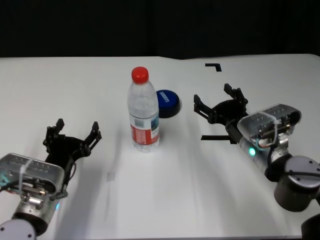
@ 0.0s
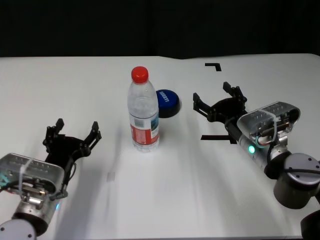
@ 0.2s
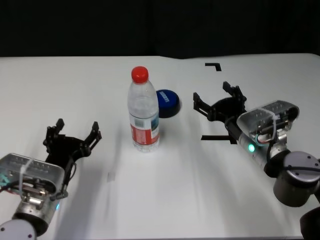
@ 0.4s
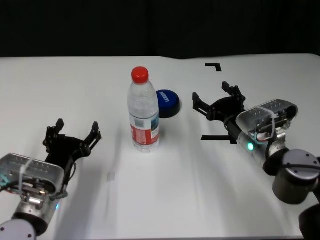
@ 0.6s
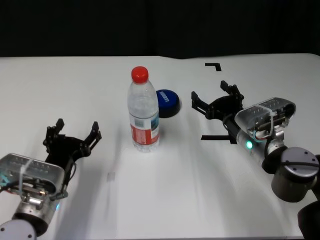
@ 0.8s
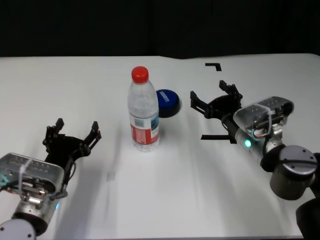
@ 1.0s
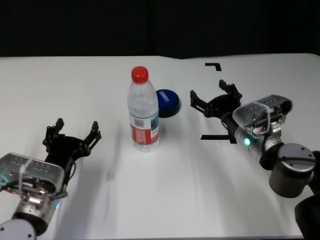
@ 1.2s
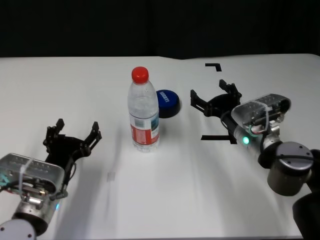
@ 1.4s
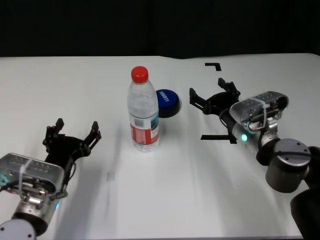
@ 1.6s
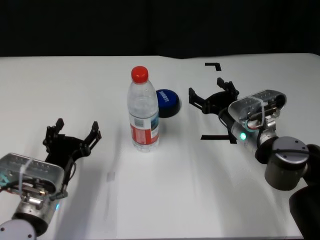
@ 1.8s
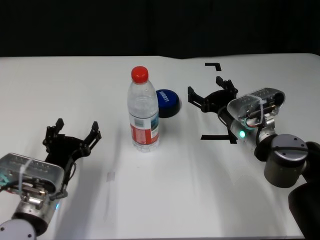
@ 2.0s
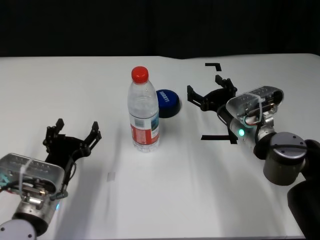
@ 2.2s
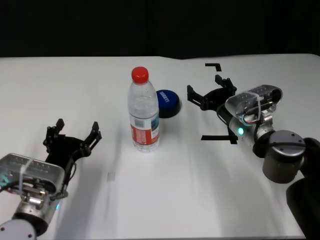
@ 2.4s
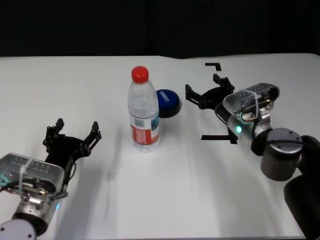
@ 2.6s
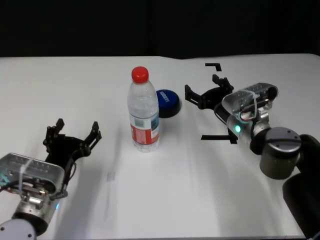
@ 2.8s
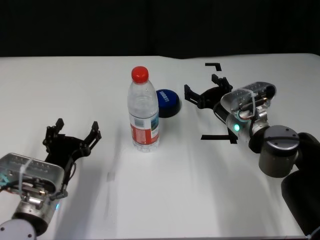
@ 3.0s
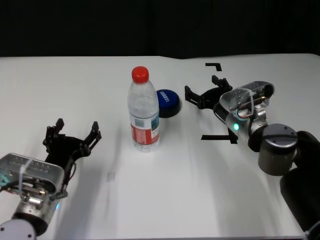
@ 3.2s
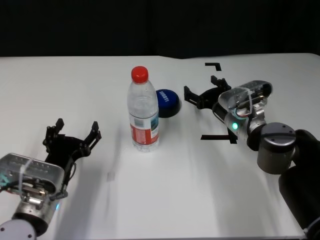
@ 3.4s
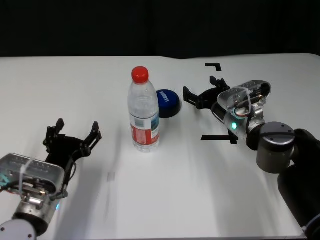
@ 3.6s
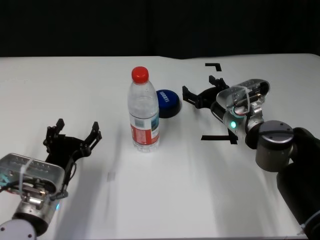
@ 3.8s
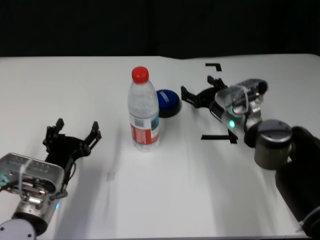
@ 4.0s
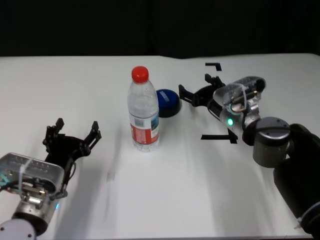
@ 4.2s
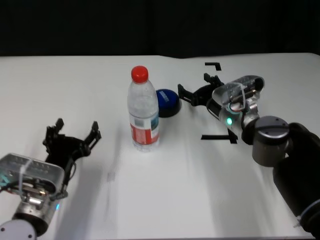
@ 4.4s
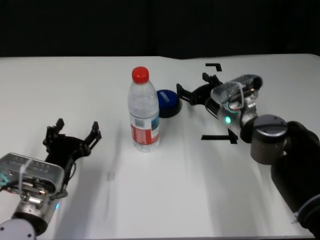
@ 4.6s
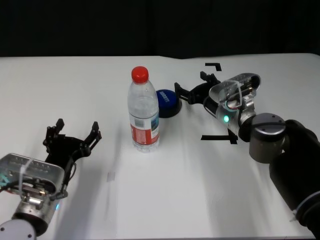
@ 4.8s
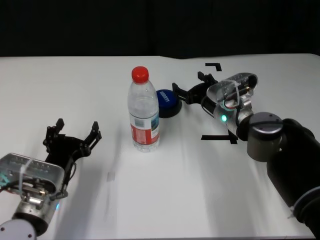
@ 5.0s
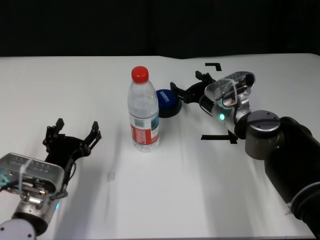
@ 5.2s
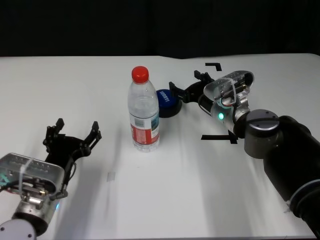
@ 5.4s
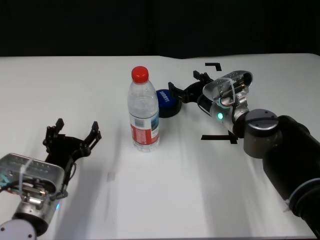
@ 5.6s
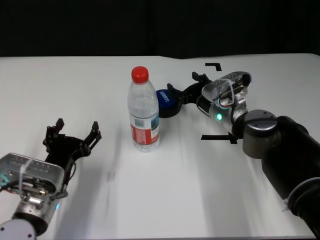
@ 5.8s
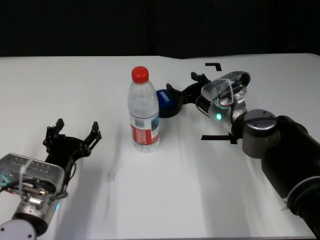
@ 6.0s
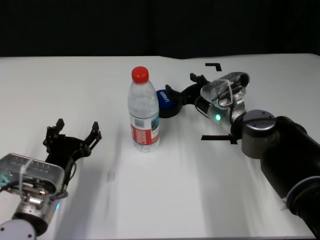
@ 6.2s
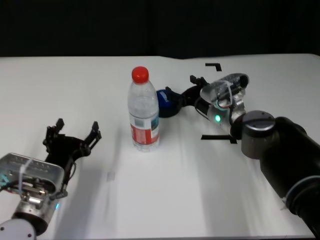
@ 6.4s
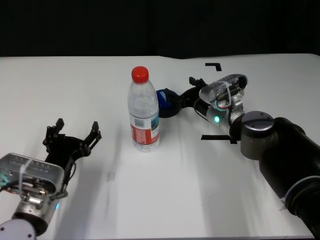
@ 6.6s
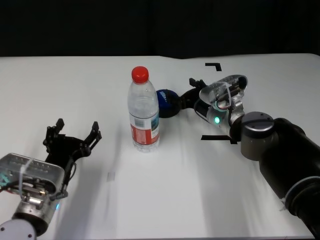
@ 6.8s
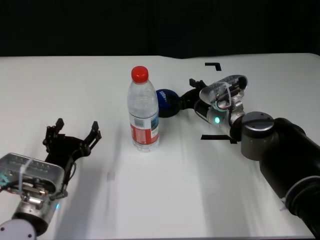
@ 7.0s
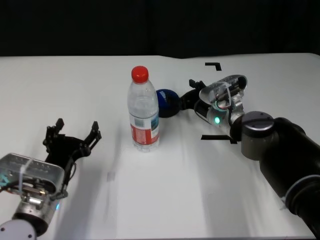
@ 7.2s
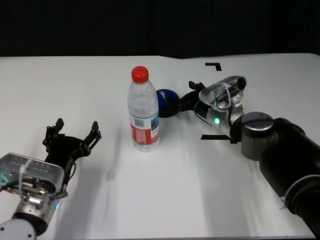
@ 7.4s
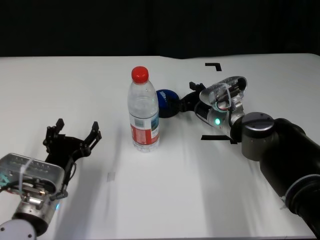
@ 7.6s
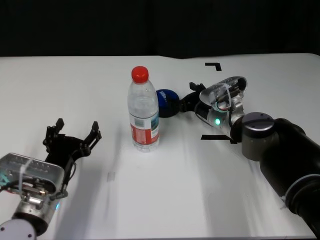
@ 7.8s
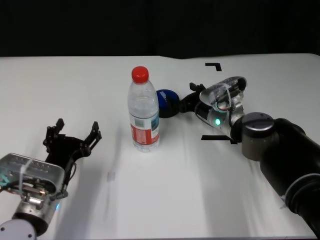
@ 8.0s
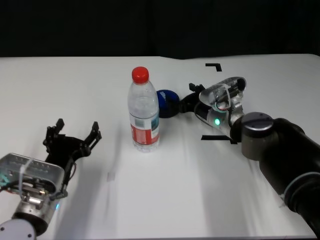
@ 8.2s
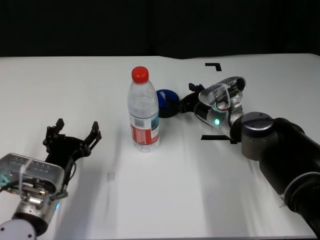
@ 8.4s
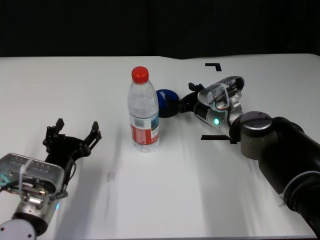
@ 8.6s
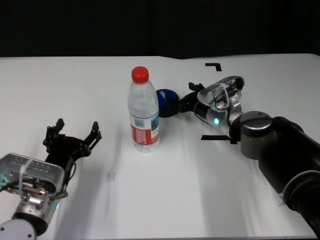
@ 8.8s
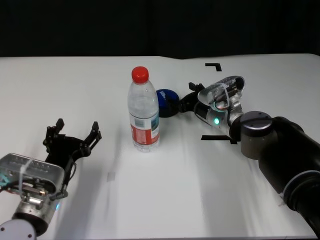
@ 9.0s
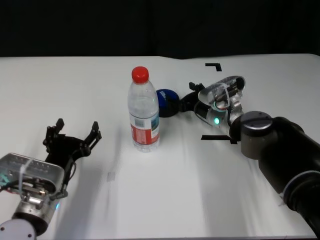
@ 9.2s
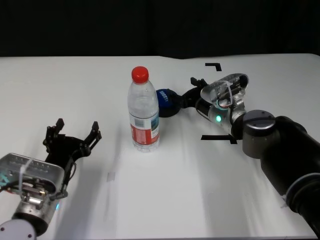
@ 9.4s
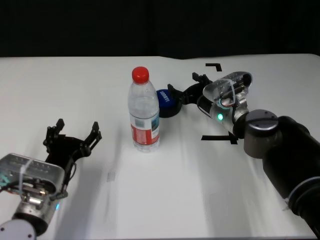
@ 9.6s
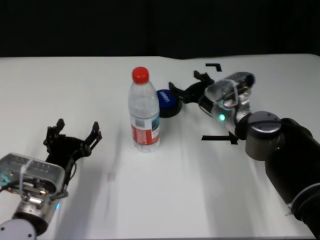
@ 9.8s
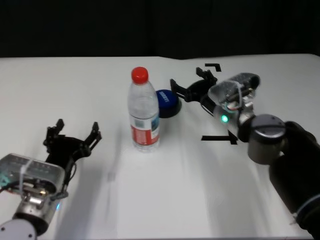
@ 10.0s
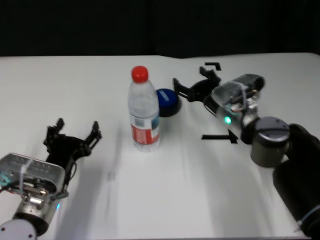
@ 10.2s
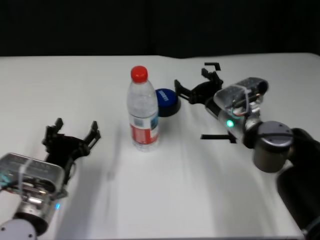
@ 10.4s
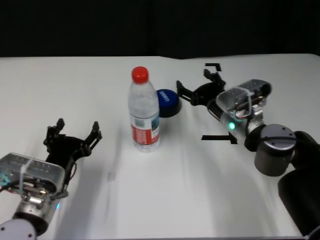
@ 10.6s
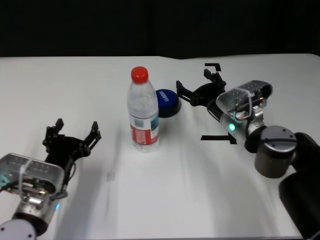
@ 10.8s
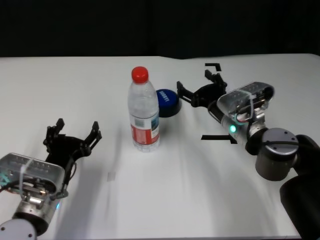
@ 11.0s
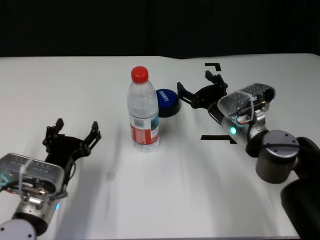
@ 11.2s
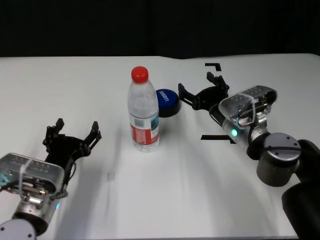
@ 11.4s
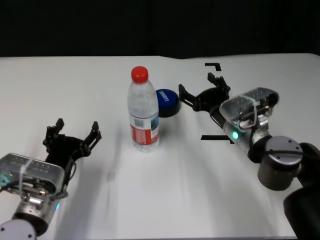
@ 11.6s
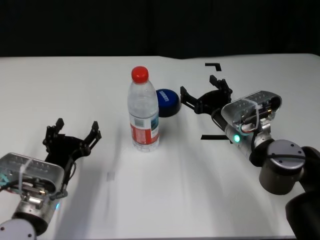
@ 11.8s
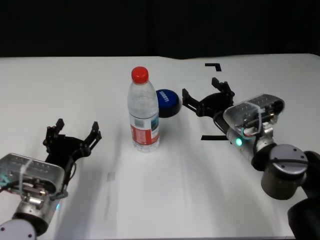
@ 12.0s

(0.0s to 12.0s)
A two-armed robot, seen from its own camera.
Task of the whole recording: after avoiding the water bottle on the table, press the button.
Step, 0.0s - 9.4s: Press the button blocked by the bottle with right gripper.

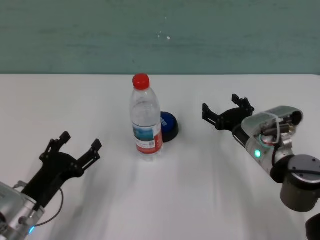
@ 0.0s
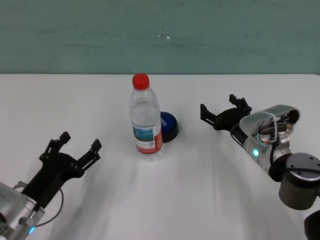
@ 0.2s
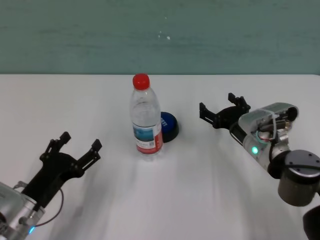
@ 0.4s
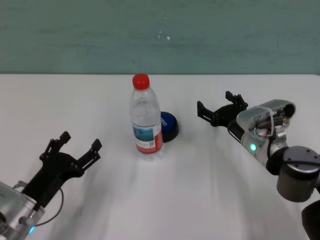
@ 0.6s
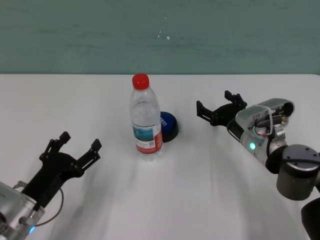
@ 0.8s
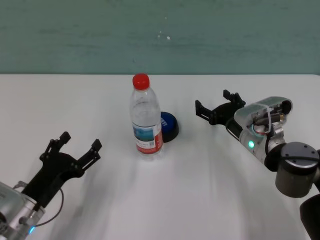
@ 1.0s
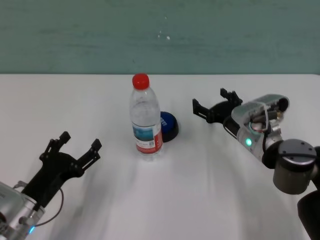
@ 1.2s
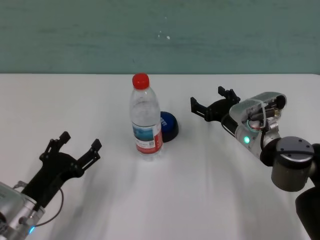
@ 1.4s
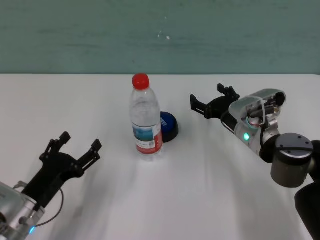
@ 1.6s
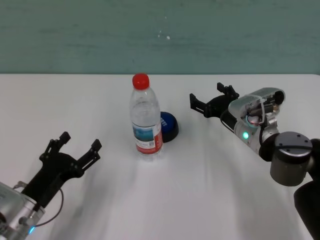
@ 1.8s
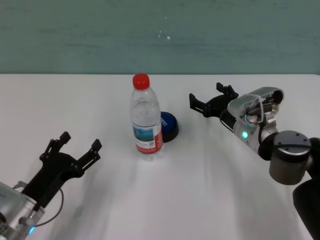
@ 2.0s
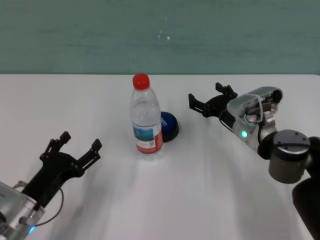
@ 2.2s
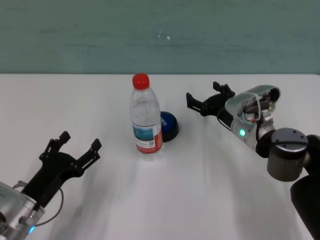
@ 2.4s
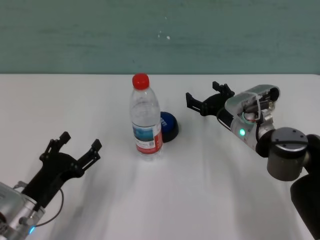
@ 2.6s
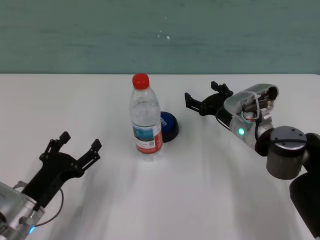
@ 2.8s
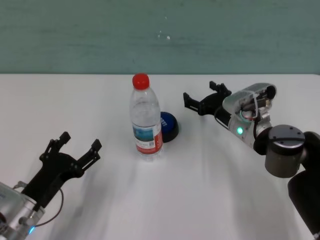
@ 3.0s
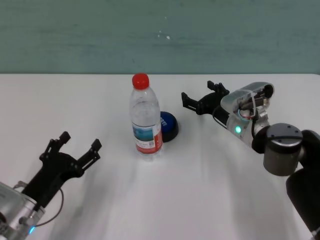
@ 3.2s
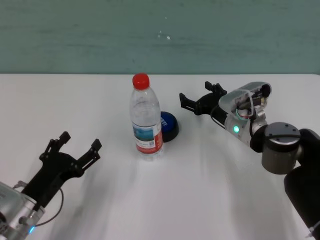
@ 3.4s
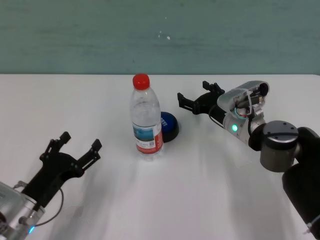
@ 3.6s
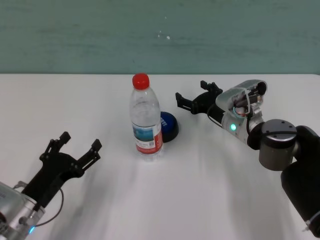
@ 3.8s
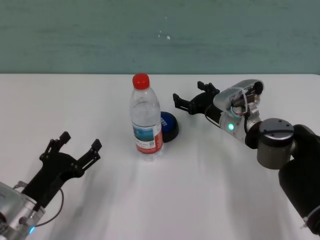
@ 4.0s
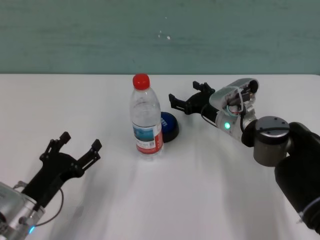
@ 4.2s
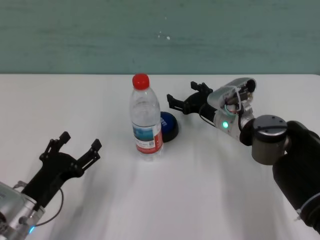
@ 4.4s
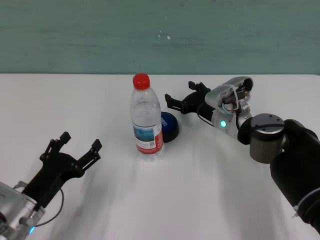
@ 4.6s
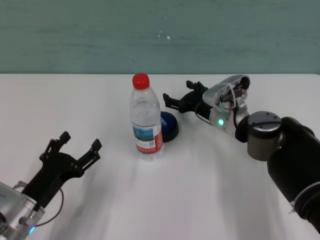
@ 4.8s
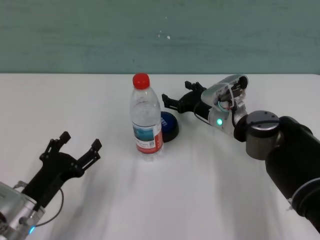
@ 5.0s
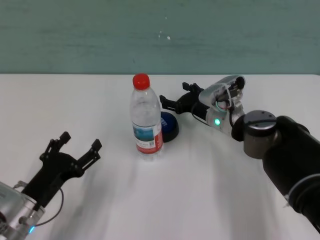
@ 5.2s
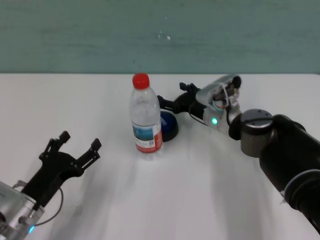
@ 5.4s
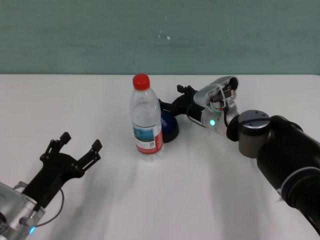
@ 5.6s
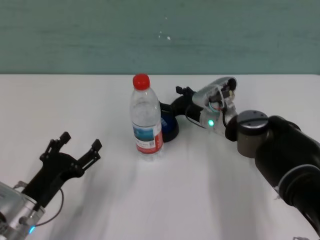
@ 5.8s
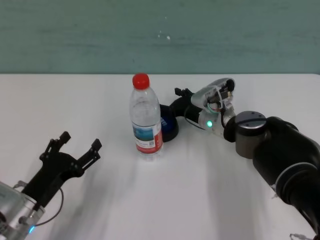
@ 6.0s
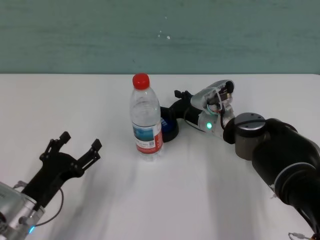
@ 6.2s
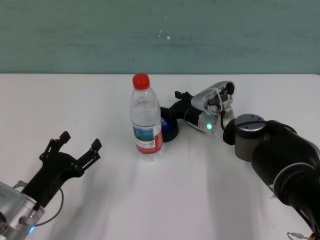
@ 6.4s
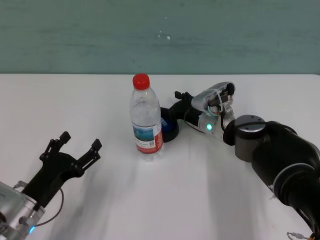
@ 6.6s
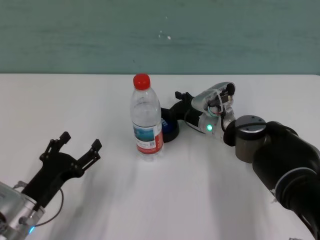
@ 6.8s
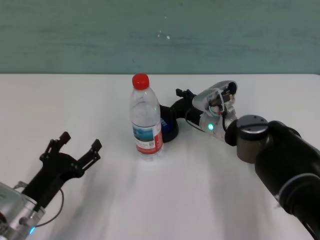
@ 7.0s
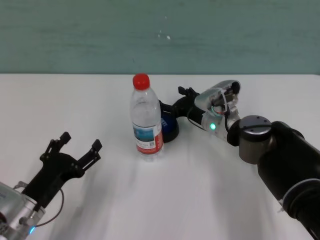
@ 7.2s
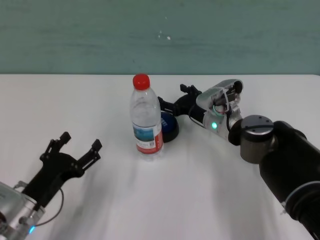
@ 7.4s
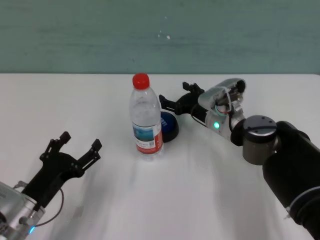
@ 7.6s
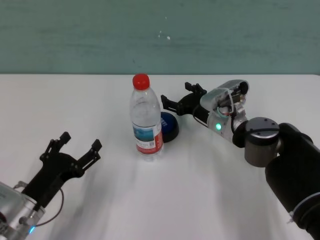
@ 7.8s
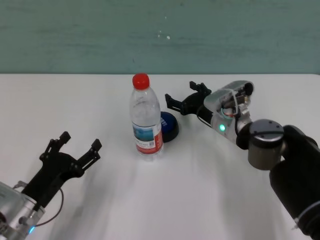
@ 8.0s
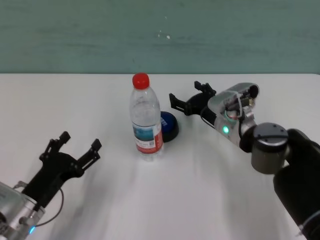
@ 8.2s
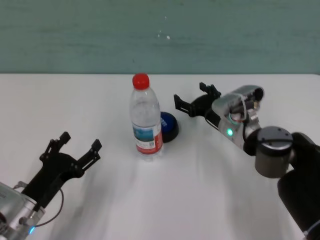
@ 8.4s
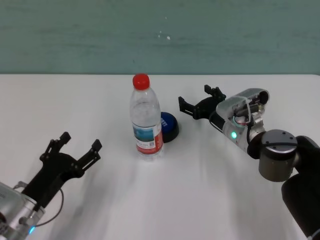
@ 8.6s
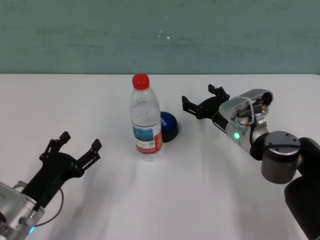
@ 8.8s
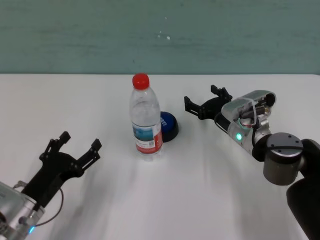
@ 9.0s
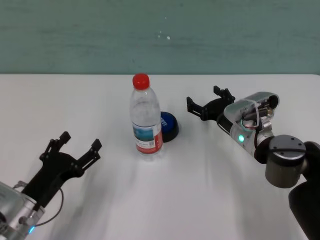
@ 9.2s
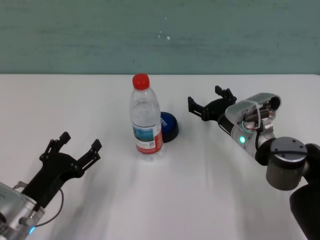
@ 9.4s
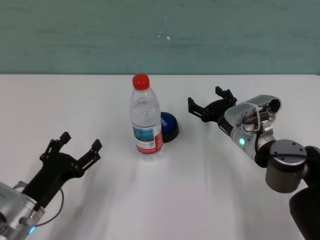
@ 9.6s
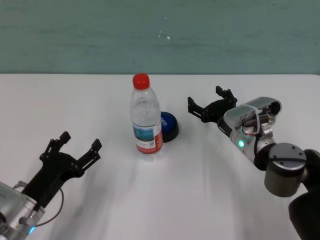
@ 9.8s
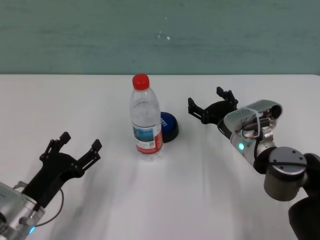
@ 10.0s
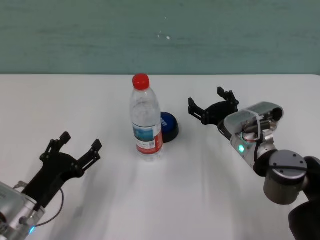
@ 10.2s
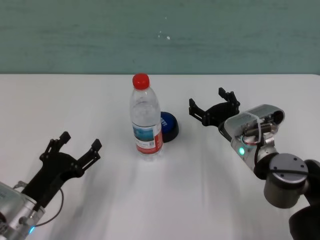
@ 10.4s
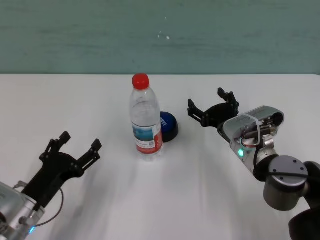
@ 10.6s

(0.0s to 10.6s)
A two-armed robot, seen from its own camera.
Task of the whole recording: after avoiding the water bottle on the table, press the button.
Step, 0.0s - 7.0s: Press the button blocked by the bottle with right gripper.
